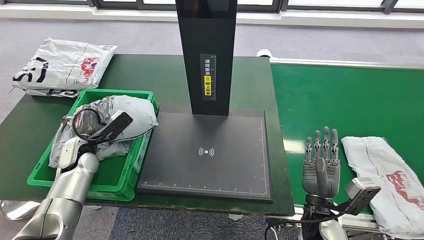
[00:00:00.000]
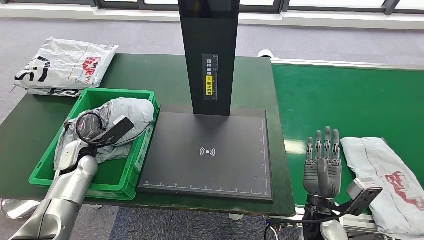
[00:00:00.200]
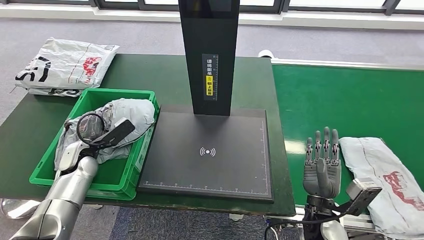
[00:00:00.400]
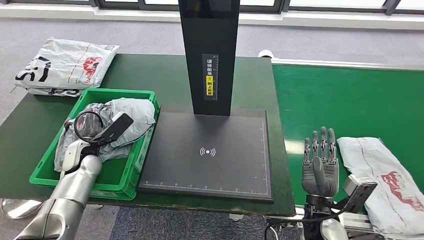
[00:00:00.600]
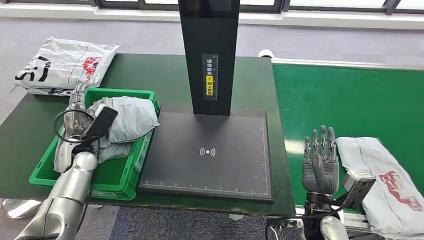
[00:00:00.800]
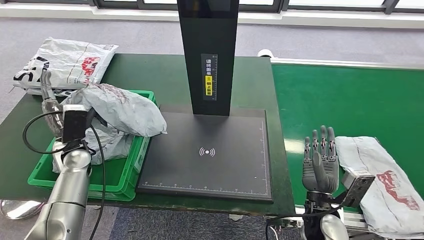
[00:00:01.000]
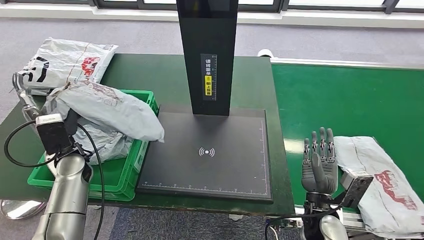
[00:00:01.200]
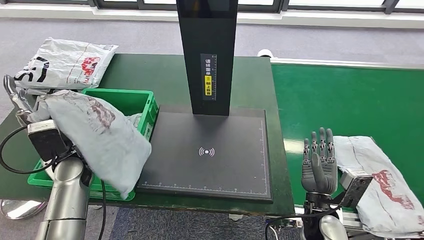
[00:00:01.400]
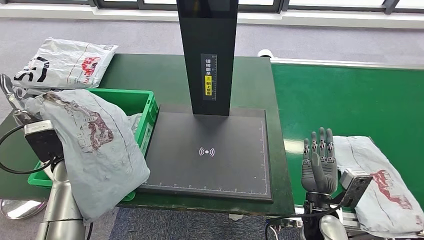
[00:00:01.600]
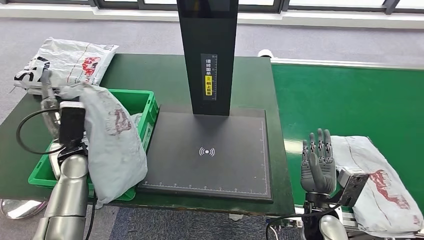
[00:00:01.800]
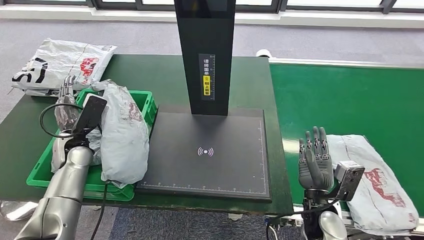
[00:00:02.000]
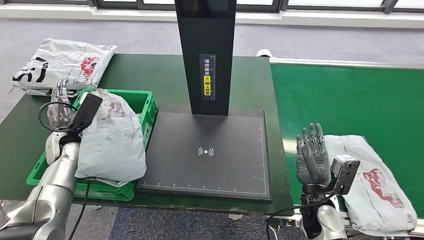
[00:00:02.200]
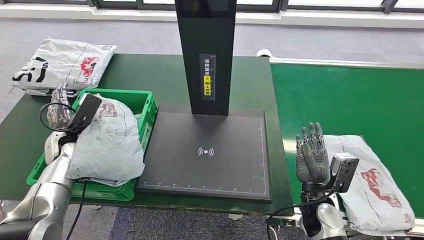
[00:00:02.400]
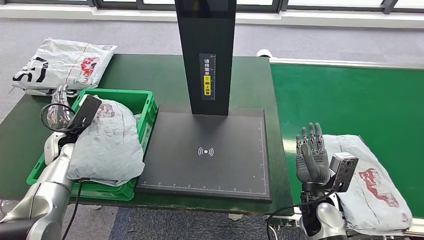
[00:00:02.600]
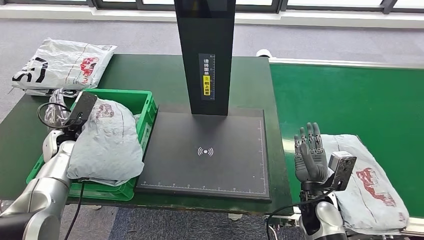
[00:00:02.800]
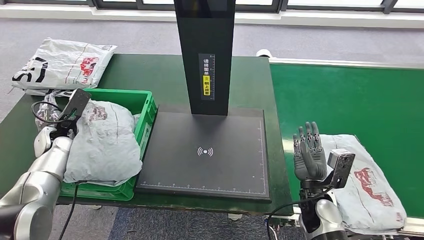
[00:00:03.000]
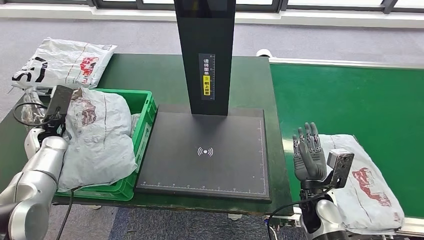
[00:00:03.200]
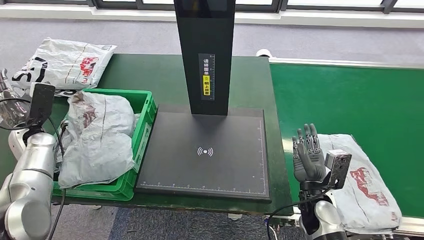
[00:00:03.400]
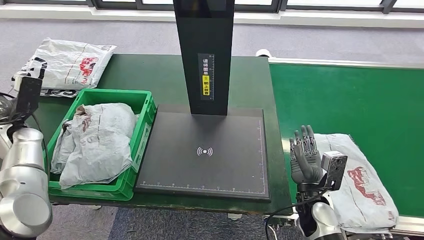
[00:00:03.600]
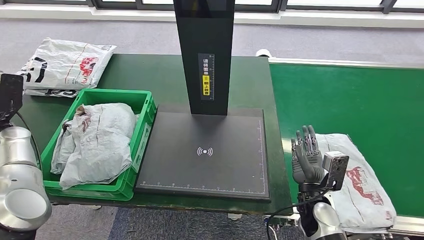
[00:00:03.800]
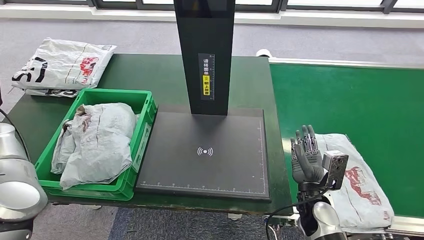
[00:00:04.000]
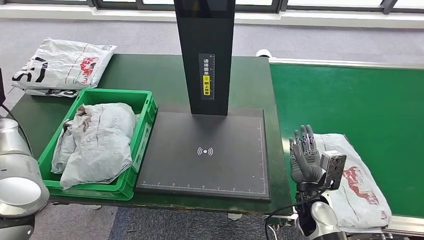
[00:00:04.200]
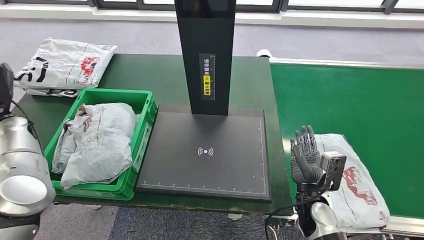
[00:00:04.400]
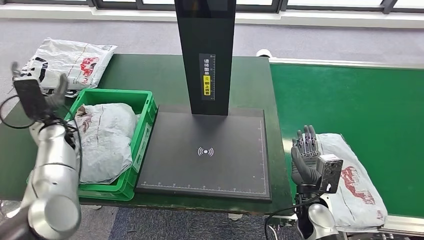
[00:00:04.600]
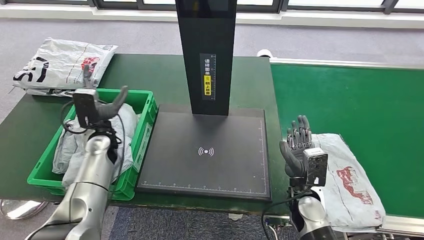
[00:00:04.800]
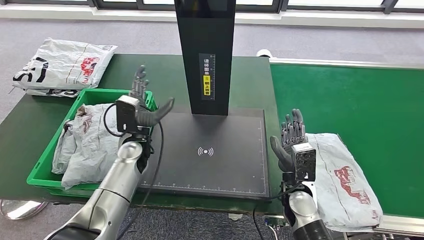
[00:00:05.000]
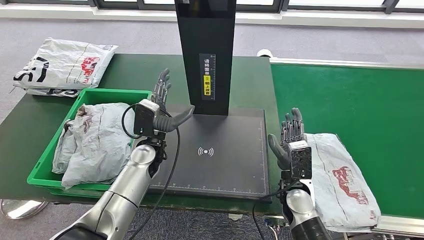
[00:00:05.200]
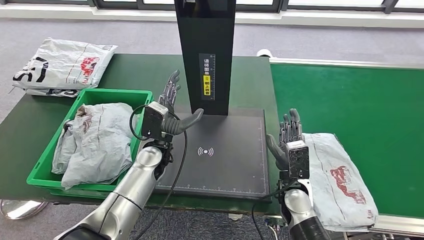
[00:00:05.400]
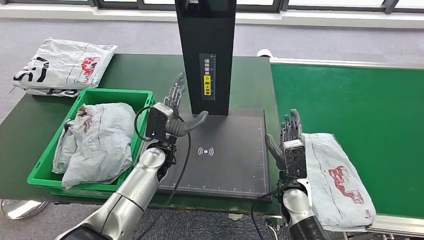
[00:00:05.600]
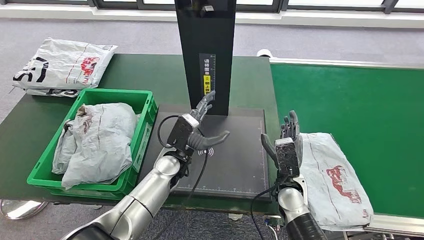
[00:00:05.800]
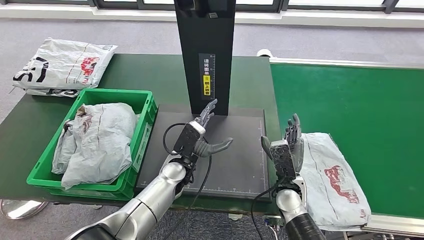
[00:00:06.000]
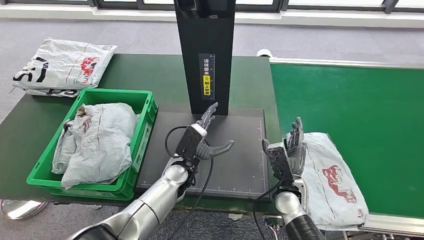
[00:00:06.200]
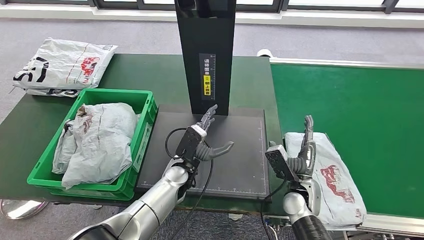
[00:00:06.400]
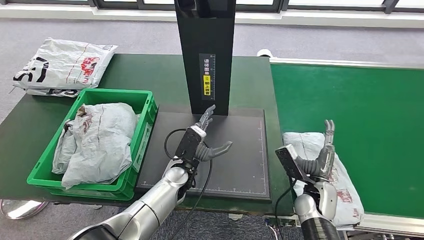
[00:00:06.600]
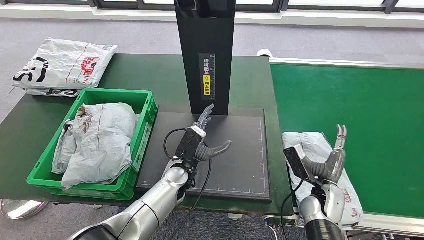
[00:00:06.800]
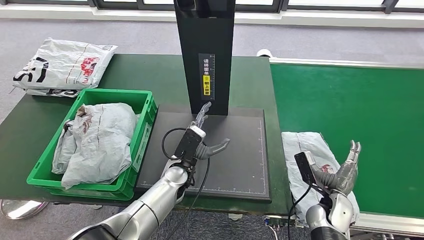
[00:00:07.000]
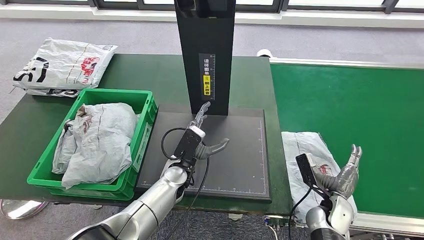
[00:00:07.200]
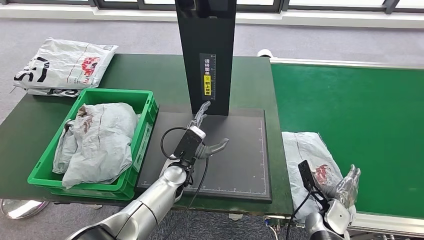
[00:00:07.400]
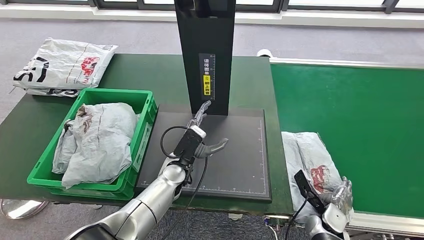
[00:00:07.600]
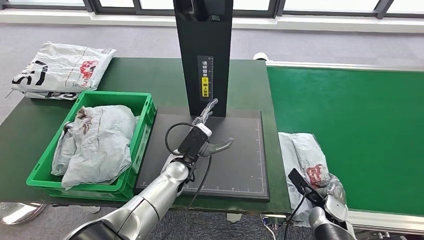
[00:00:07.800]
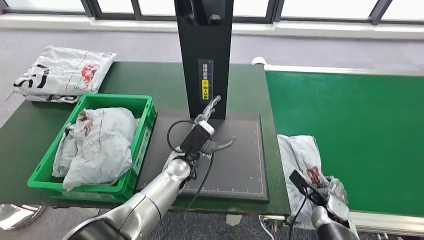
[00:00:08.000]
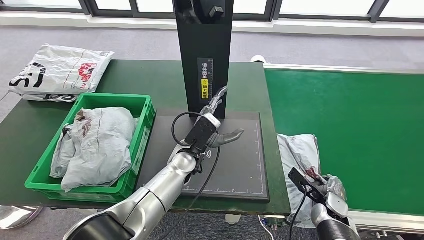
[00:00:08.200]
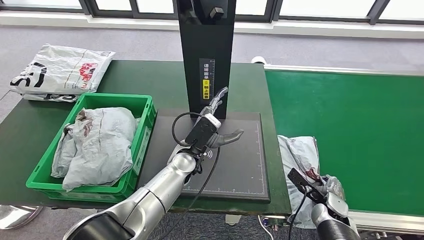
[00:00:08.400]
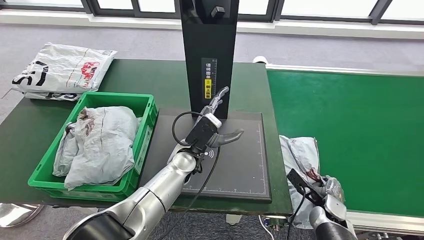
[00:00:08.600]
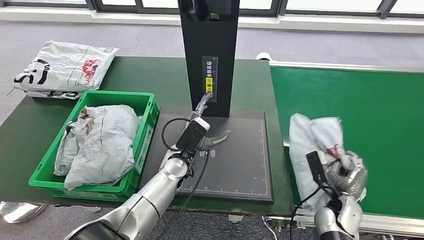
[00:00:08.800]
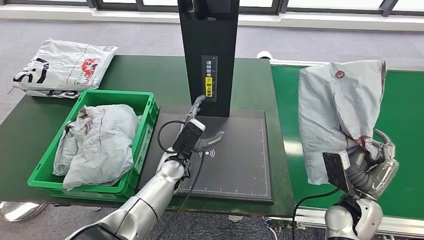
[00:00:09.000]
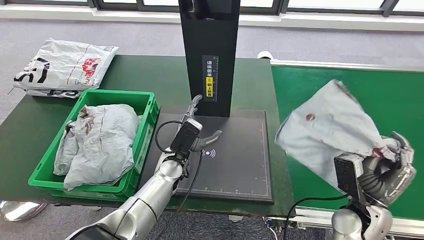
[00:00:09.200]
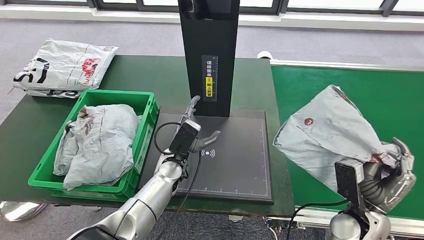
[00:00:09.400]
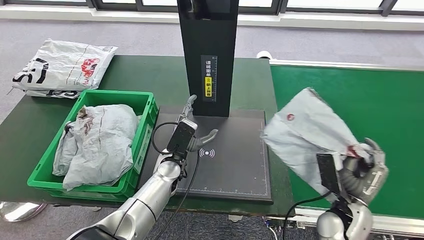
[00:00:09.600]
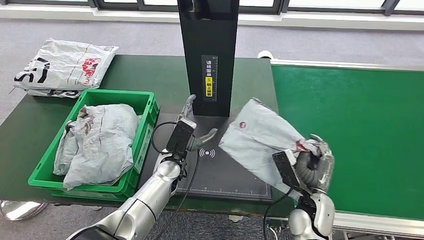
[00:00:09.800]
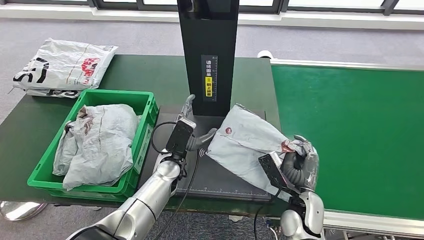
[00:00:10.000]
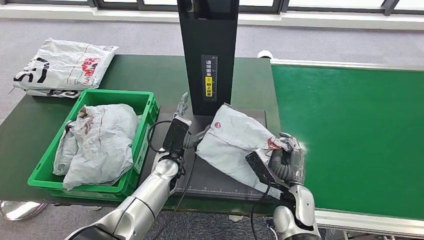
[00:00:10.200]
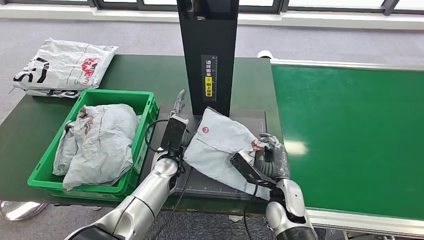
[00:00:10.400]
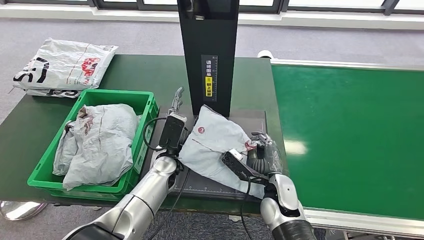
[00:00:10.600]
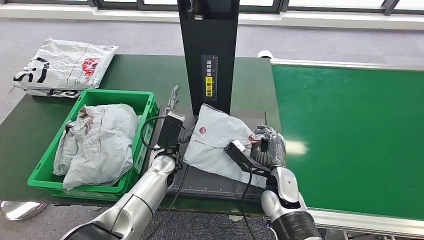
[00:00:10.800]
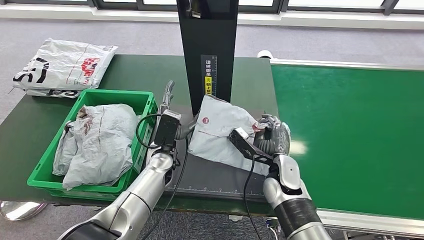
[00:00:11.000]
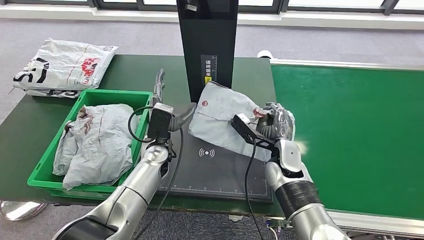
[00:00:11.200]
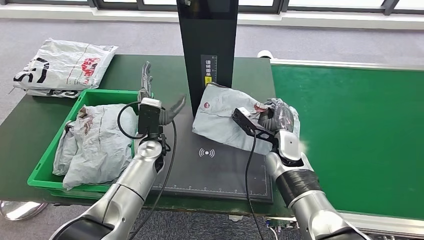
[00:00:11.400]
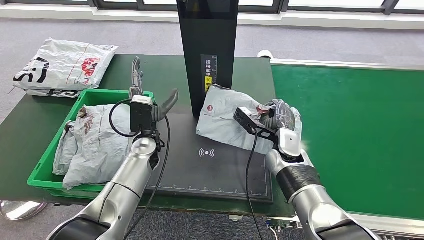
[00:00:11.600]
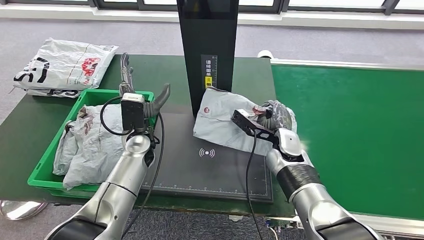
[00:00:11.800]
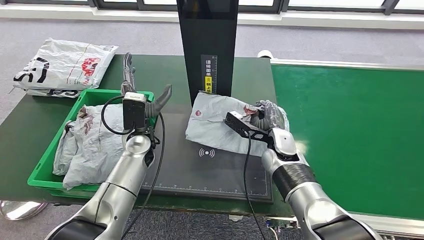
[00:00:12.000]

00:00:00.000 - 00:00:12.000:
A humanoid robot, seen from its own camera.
Step, 00:00:00.000 - 00:00:05.400: Place the parcel into the delivery box.
Step, 00:00:05.600 - 00:00:08.800: Pick up the parcel from the conveyor belt.
00:00:03.000 - 00:00:04.400: The left hand shifts some 10 cm upward and to the left.
00:00:06.000 - 00:00:07.600: The right hand travels to the right and downward by approximately 15 cm.

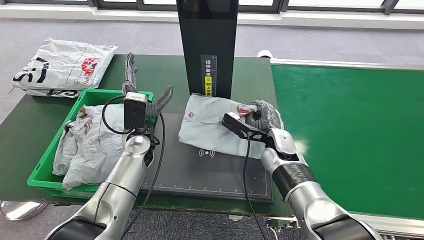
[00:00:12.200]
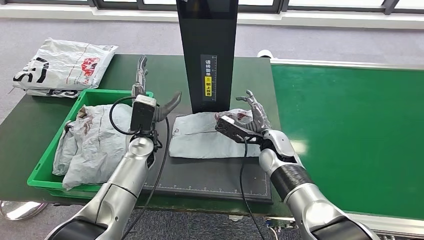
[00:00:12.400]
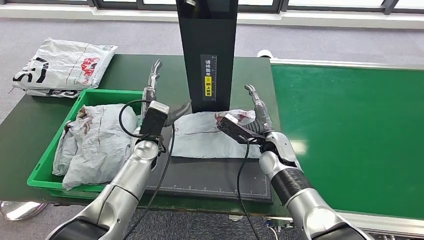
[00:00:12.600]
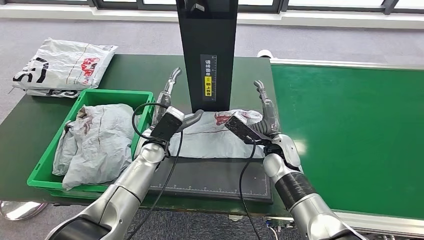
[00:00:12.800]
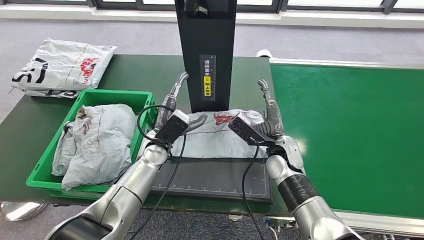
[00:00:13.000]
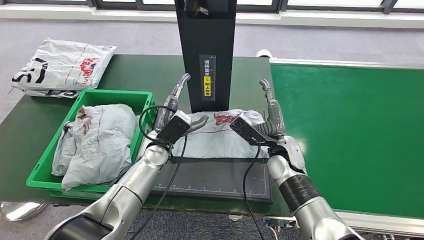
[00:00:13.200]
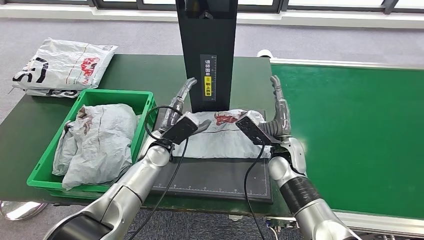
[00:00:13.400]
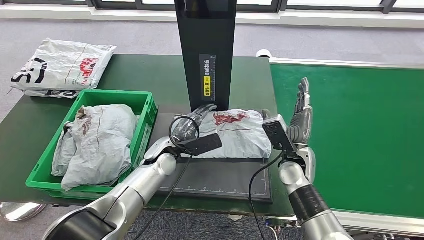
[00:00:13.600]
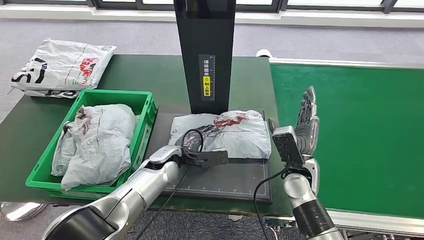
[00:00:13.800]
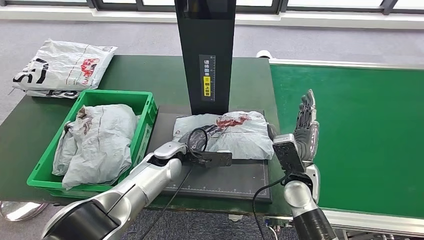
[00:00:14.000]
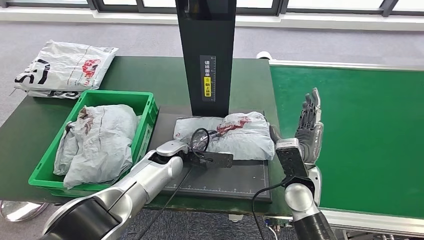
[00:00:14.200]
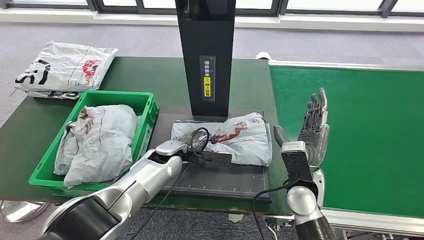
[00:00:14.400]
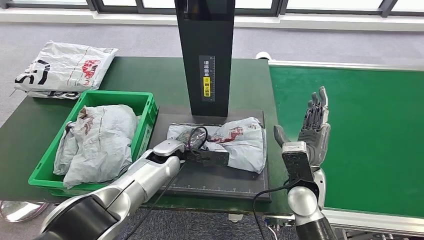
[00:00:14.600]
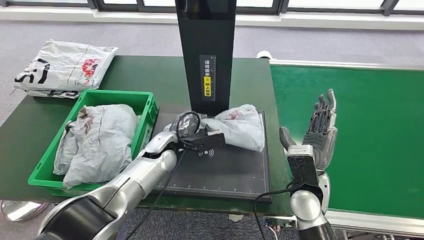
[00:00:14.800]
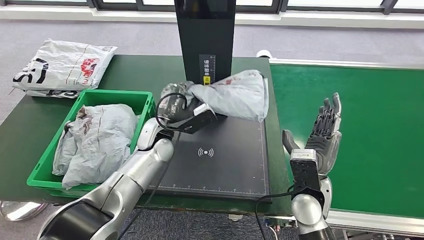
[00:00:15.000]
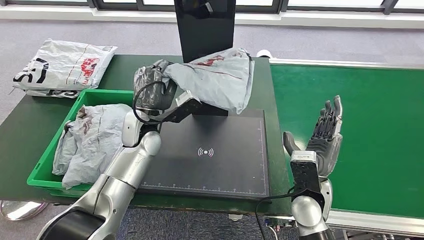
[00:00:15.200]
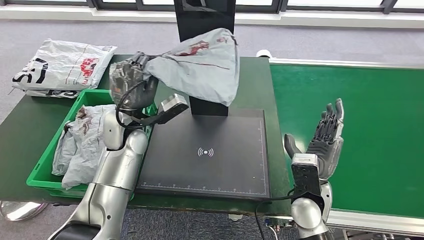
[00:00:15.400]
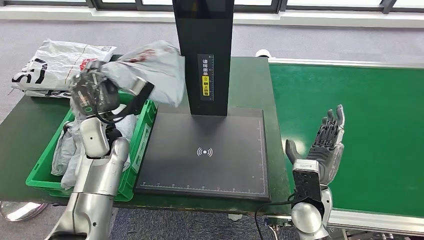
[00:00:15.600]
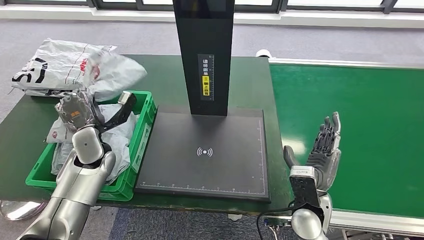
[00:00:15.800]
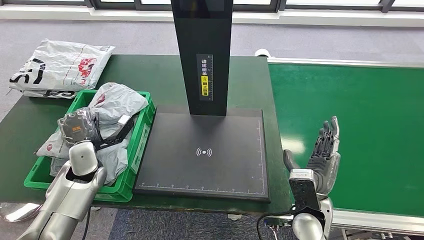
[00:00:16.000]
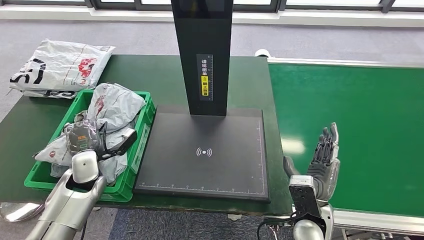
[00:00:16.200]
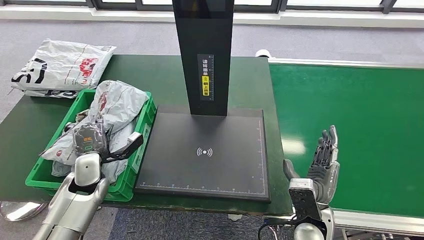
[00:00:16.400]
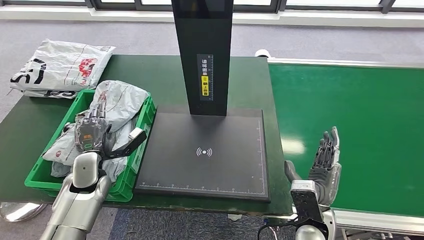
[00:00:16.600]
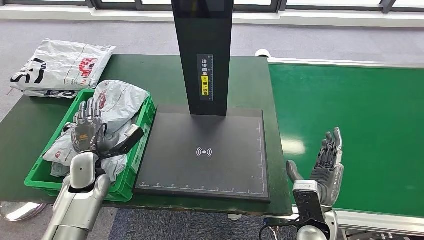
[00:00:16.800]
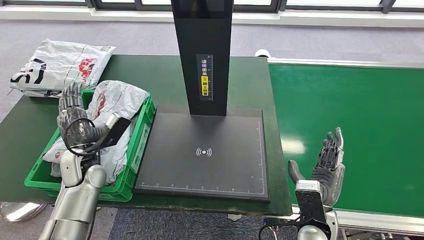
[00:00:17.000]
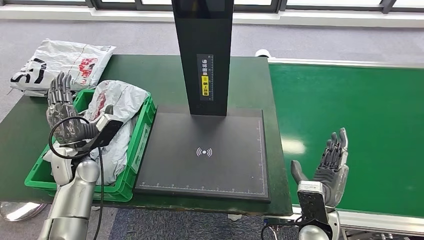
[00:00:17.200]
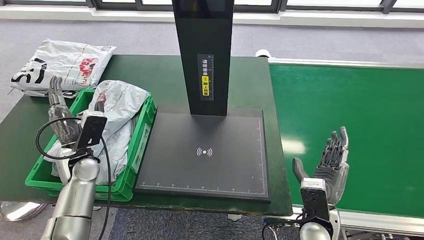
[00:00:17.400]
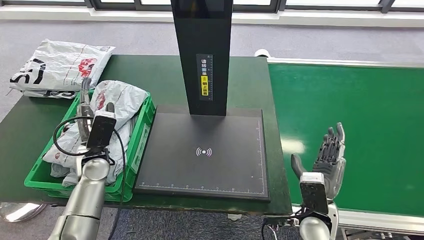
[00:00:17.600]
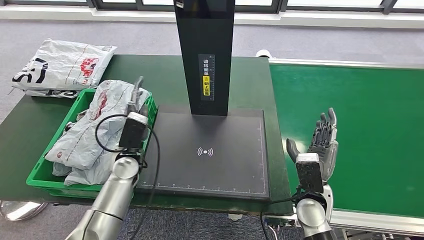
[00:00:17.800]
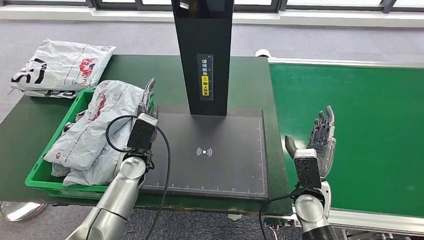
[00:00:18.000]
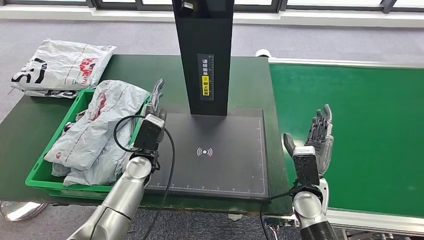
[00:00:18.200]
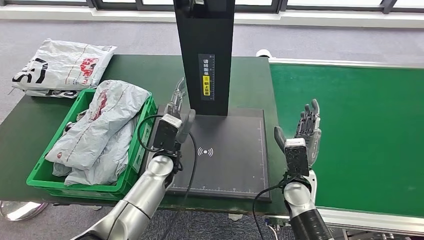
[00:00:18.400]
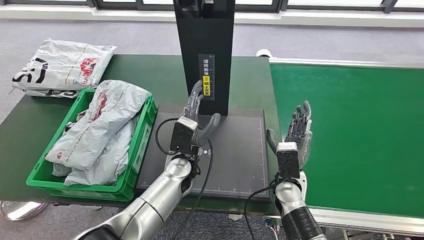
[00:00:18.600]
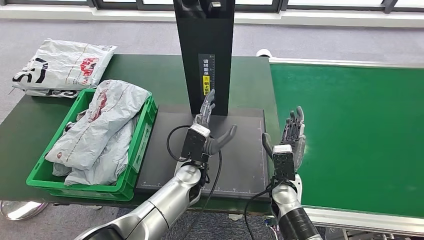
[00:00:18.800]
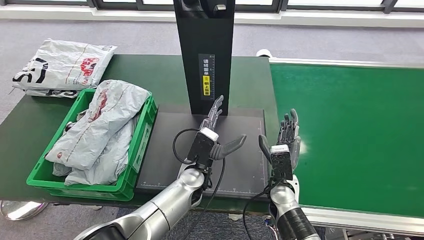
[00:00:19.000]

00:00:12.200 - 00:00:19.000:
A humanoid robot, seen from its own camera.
Step, 00:00:14.000 - 00:00:14.800: Pick up the parcel from the inbound machine.
